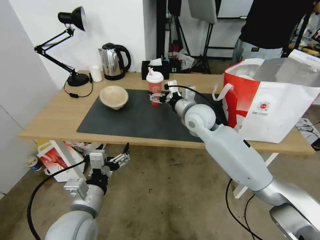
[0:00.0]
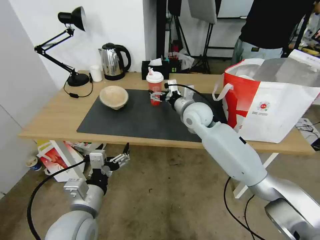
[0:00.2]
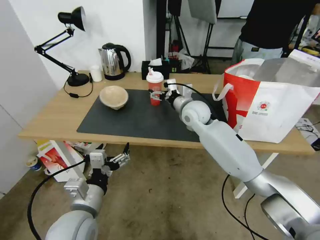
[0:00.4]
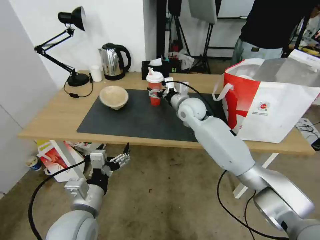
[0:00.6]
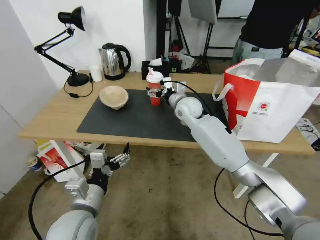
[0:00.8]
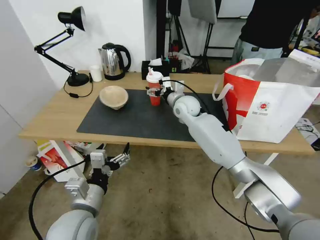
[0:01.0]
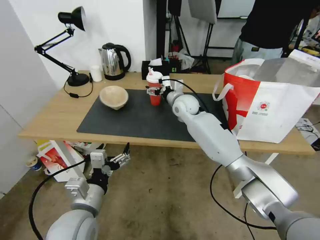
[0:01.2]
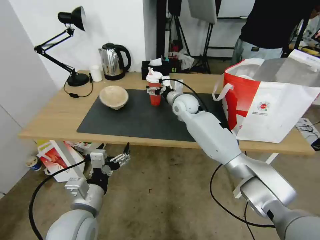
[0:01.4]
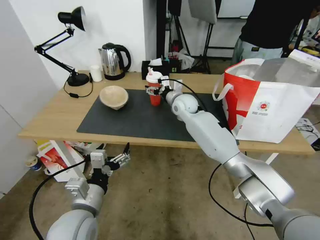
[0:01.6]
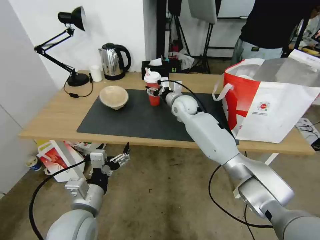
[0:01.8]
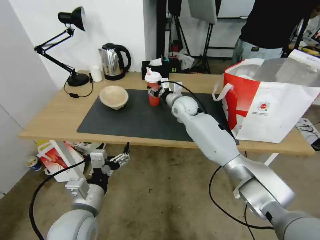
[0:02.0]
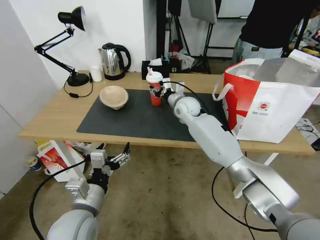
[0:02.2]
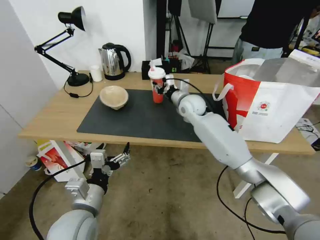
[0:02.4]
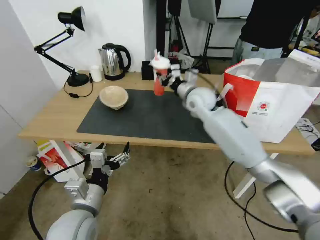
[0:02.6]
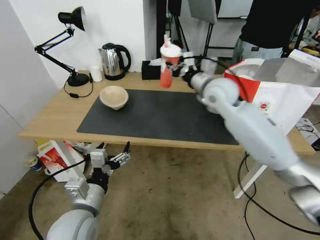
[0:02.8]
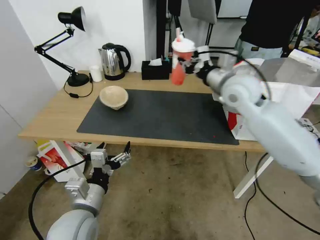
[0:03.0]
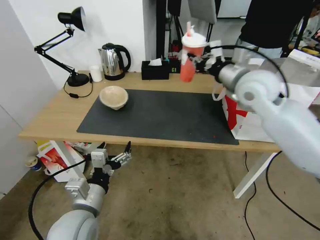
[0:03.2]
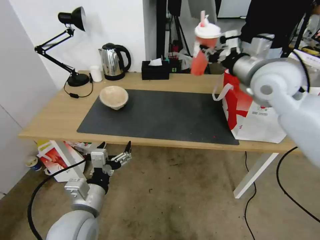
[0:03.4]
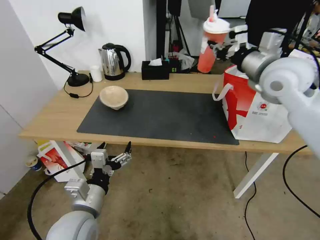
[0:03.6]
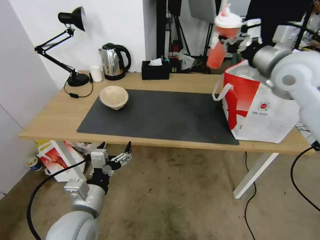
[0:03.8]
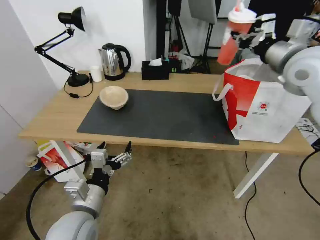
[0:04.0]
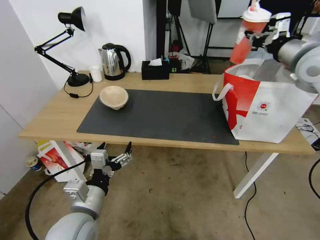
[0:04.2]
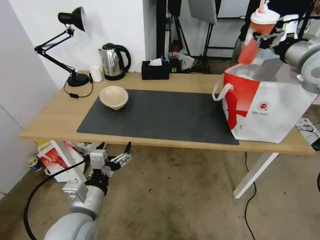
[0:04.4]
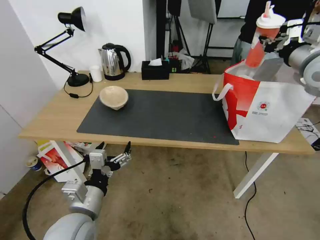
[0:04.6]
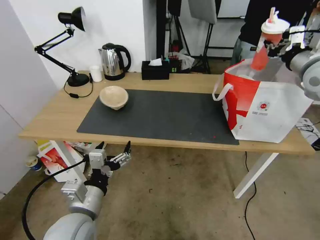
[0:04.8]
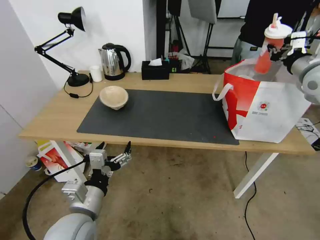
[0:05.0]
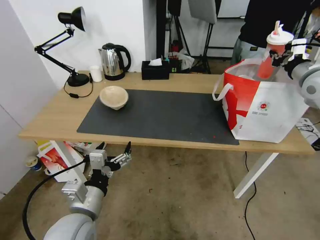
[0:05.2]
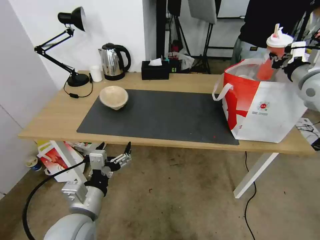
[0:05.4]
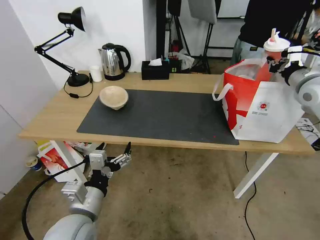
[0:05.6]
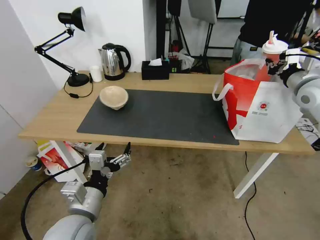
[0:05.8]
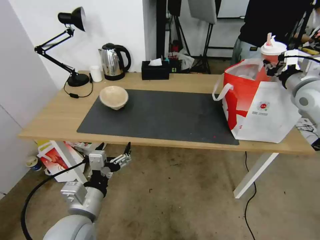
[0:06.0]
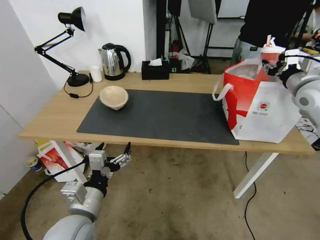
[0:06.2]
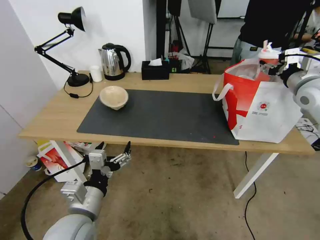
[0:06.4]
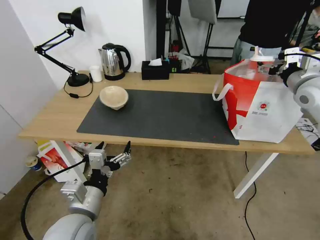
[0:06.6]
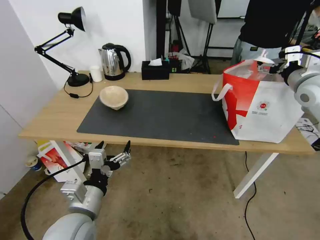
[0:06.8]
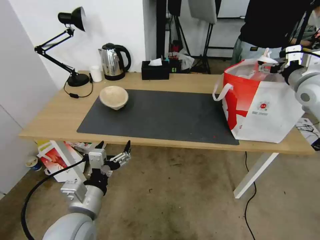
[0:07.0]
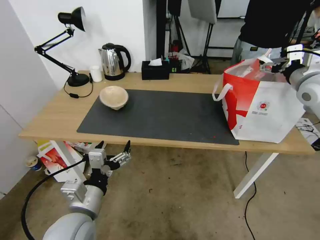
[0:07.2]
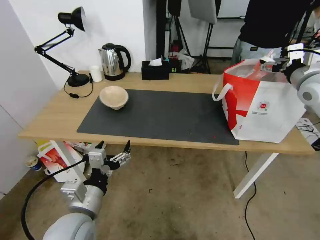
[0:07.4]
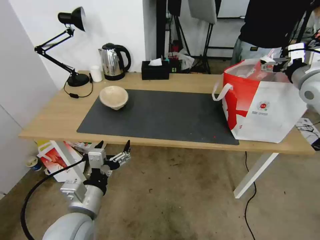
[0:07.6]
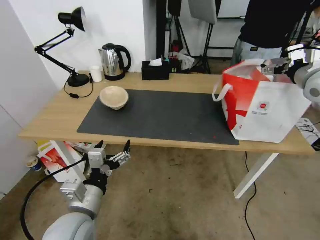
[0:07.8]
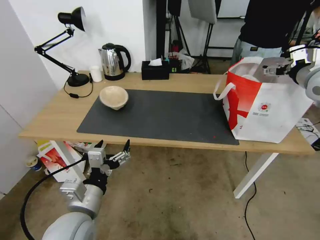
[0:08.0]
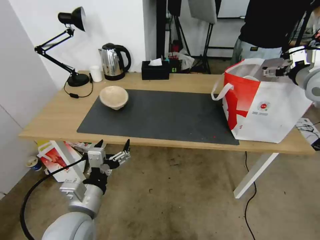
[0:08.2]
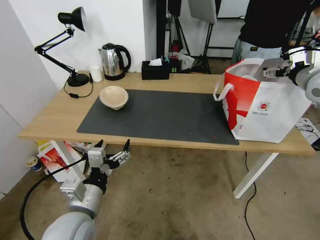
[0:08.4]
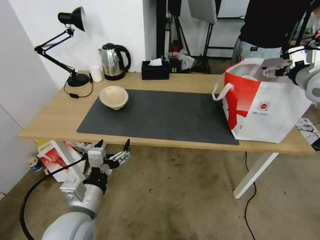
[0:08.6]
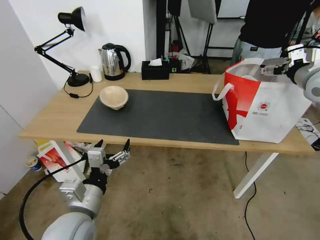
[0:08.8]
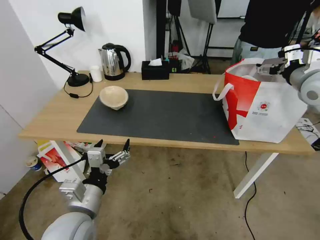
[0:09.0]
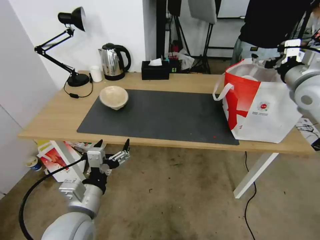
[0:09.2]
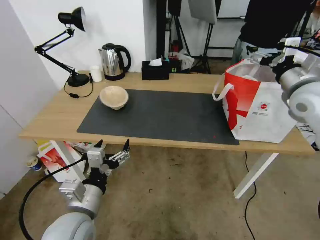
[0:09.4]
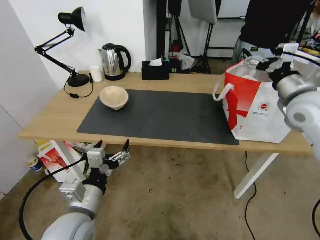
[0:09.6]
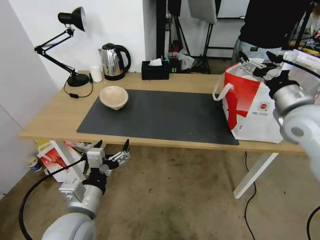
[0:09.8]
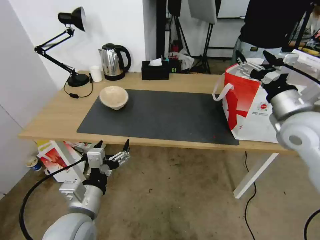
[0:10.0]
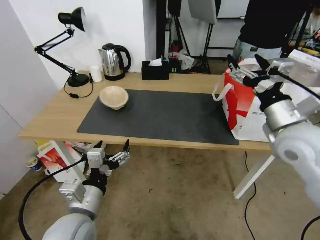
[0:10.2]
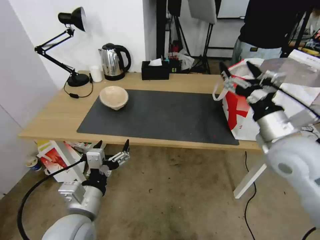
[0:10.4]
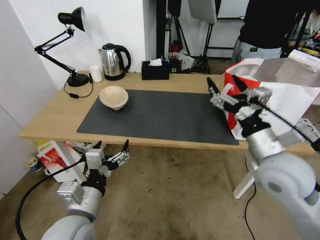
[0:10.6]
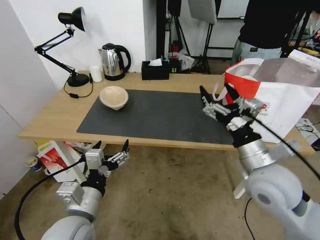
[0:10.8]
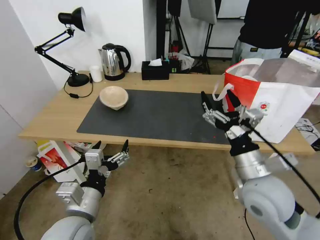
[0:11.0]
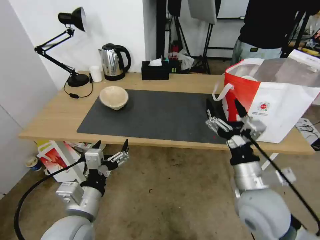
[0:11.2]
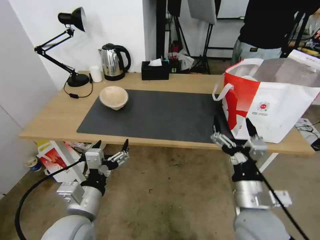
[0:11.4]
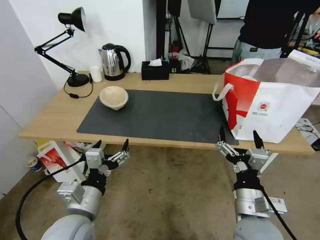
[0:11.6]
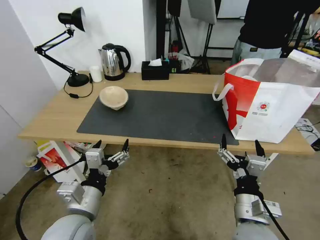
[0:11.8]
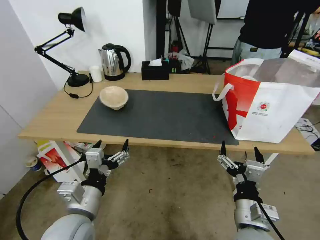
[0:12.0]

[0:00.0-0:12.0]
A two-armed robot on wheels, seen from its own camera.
Task of the whole recording: Pick up the trash from the table and place it into the takeout bag.
0:00.0 to 0:01.6: The right gripper shifts roughly 10 cm forward.
0:01.6 to 0:03.0: The right gripper heads upward, to the right and backward, covering approximately 25 cm, and closes up.
0:03.0 to 0:04.4: The right gripper is displaced to the right and upward by about 20 cm.
0:04.4 to 0:06.0: The right gripper goes approximately 10 cm downward.
0:06.0 to 0:07.6: The right gripper opens up.
0:07.6 to 0:09.0: There are only small adjustments of the grippers.
0:09.0 to 0:10.4: The right gripper heads backward, to the left and downward, covering about 20 cm.
0:10.4 to 0:12.0: The right gripper travels downward, backward and to the left by about 25 cm.

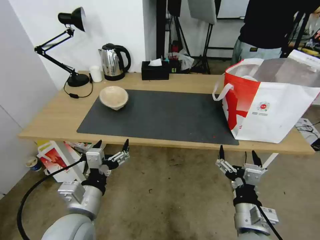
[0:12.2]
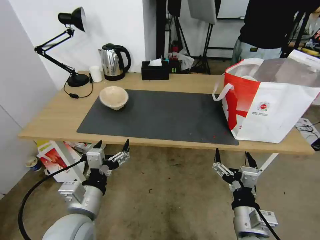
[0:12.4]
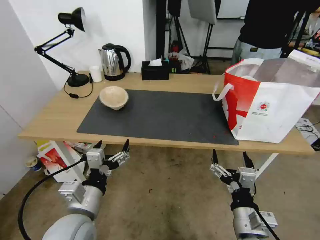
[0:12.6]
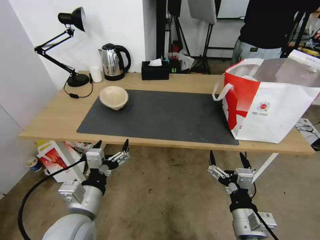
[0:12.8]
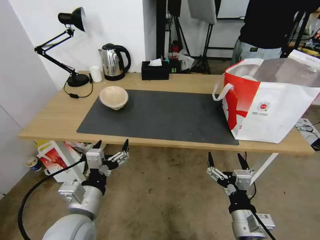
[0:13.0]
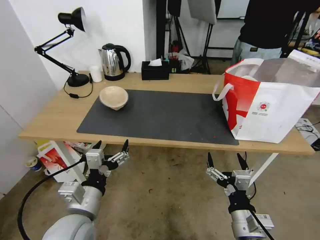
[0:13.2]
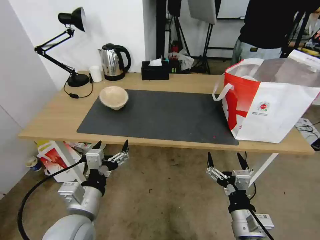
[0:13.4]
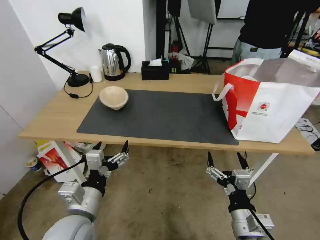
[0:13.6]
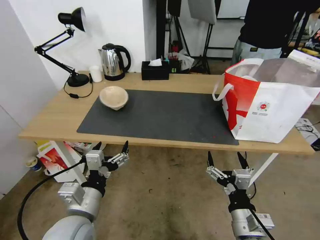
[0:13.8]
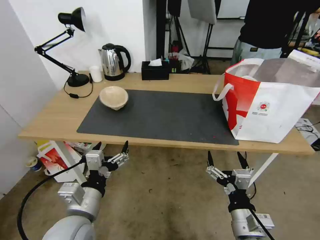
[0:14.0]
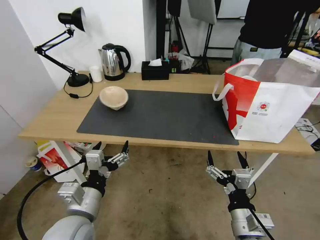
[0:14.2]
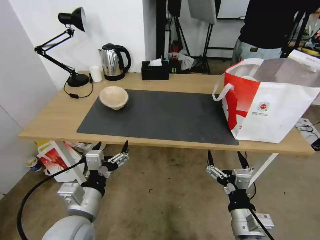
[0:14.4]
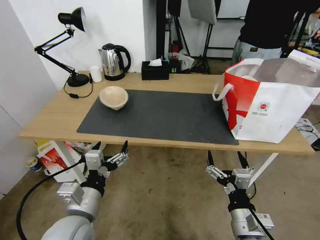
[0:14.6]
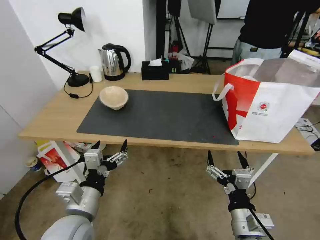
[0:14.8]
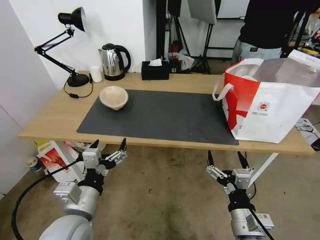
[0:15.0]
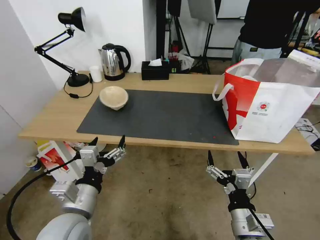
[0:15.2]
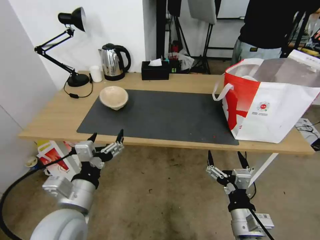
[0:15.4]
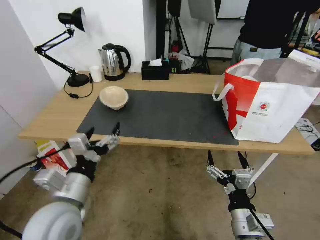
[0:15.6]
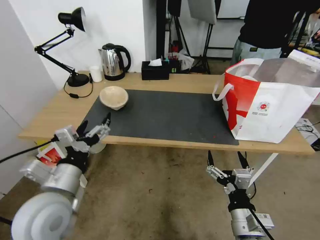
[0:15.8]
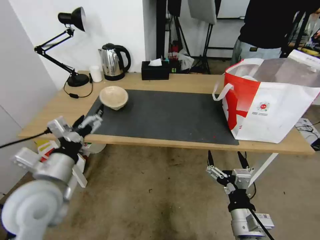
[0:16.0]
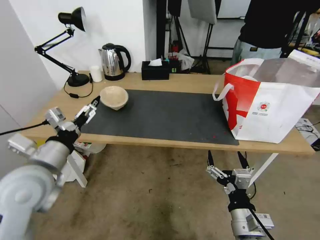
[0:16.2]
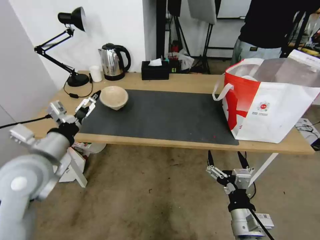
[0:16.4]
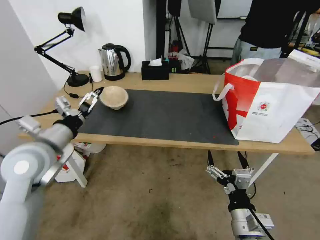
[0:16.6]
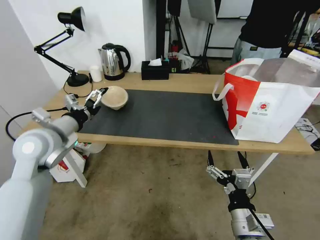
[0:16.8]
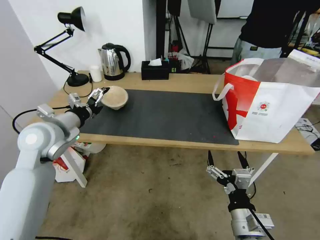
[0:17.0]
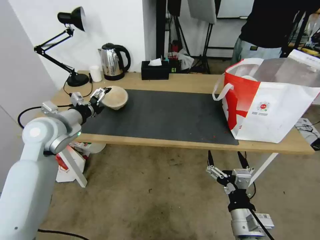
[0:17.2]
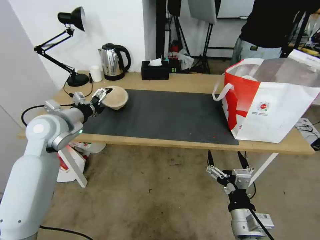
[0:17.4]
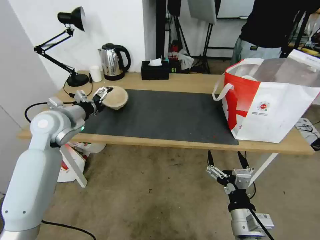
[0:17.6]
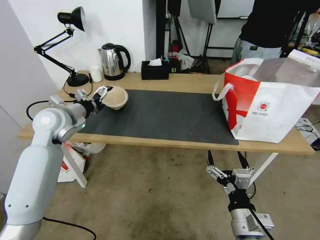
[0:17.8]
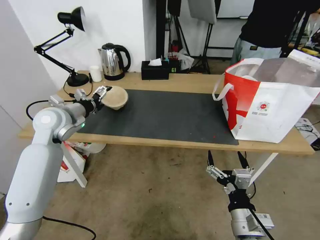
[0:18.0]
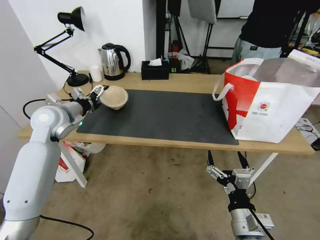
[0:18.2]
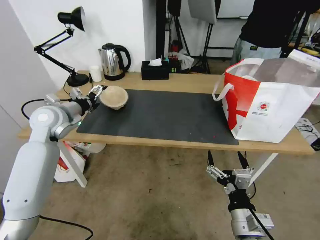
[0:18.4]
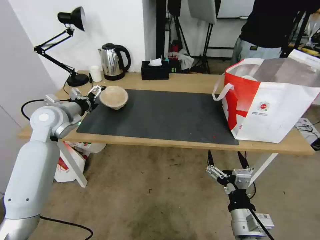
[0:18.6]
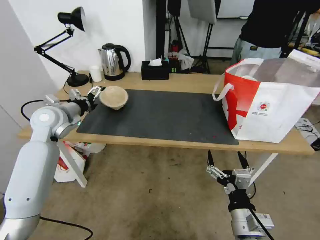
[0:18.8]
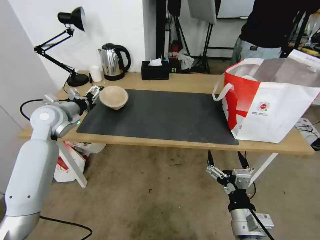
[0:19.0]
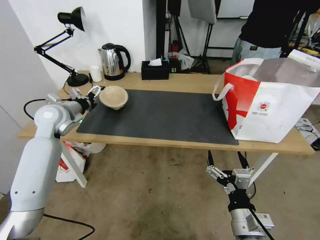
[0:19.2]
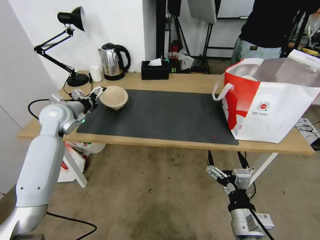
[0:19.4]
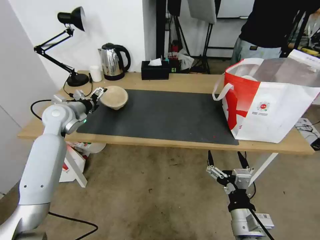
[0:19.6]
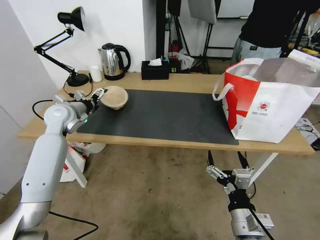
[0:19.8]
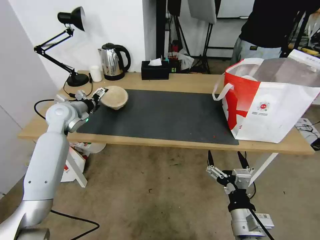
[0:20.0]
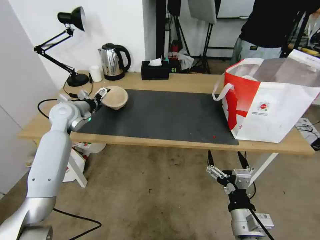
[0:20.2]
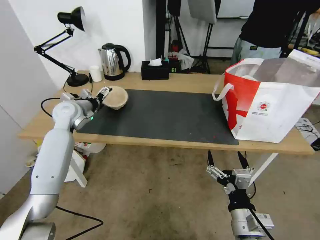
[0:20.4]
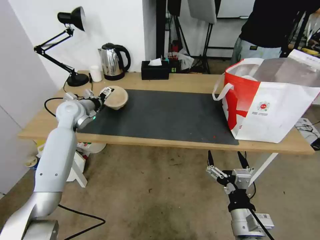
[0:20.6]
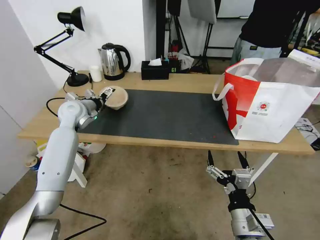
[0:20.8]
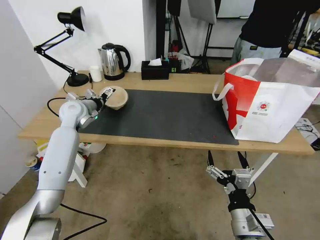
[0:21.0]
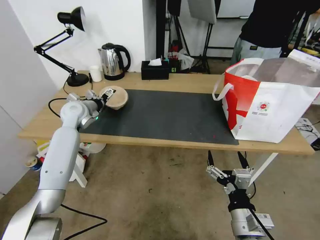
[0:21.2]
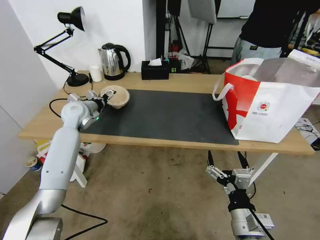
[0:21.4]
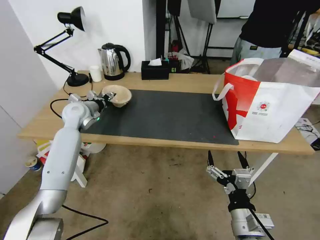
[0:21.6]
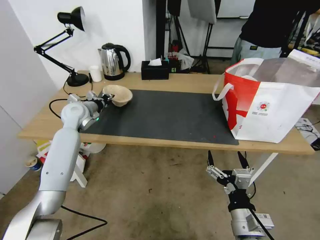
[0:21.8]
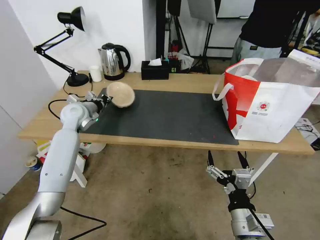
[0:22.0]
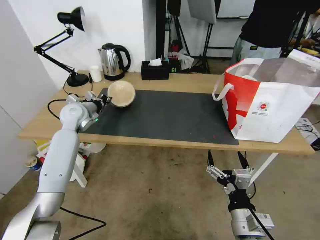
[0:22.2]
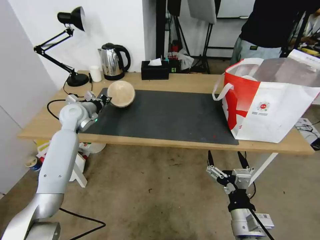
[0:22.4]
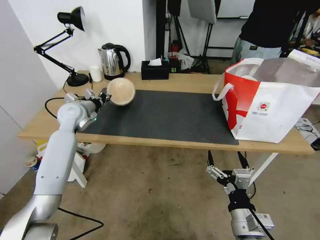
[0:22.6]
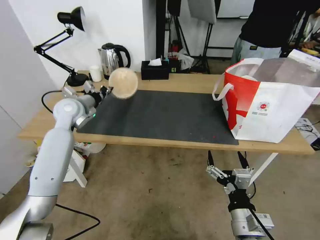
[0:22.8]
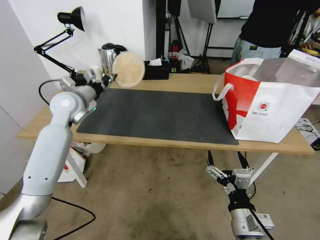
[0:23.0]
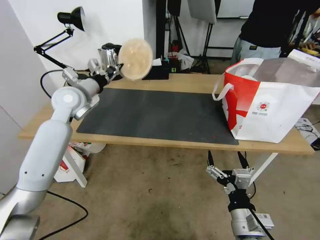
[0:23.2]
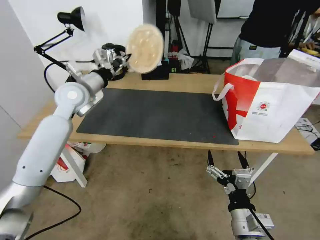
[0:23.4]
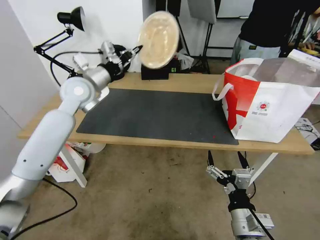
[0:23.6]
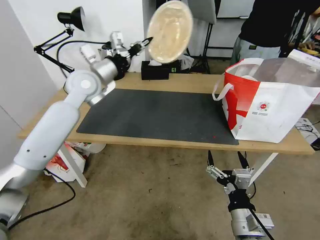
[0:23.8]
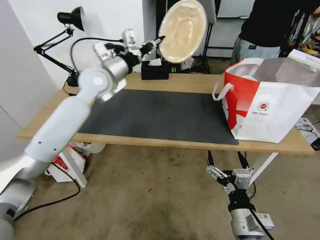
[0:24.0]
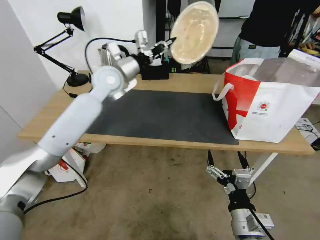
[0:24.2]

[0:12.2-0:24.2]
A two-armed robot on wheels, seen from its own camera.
Task of the whole recording: Pick up the trash from the table and place it into the takeout bag.
0:12.2 to 0:15.2: There are only small adjustments of the grippers.
0:15.2 to 0:16.6: The left gripper shifts roughly 20 cm forward, to the left and upward.
0:16.6 to 0:18.2: The left gripper goes some 15 cm forward.
0:18.2 to 0:19.8: The left gripper moves about 5 cm.
0:19.8 to 0:21.2: The grippers make only small movements.
0:21.2 to 0:22.6: The left gripper closes up.
0:22.6 to 0:24.2: The left gripper is displaced to the right and upward by approximately 20 cm.
